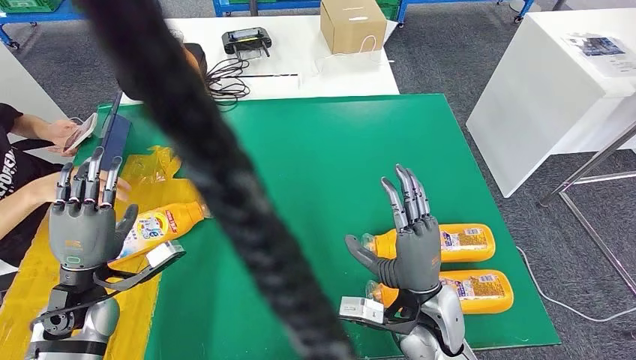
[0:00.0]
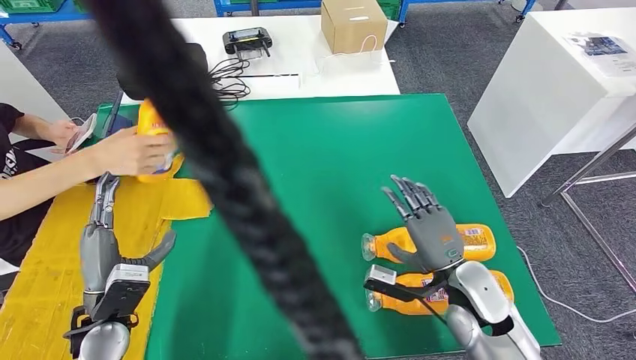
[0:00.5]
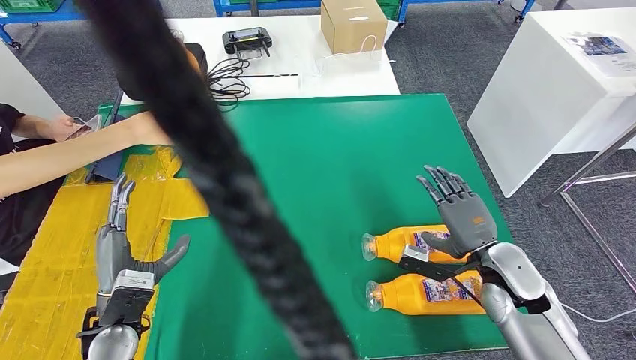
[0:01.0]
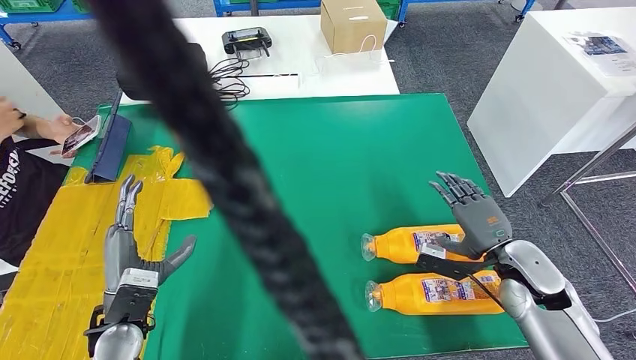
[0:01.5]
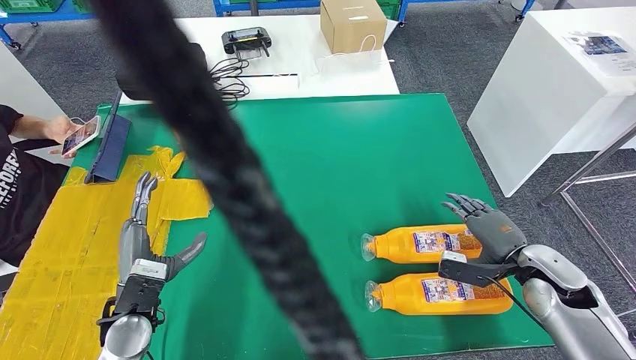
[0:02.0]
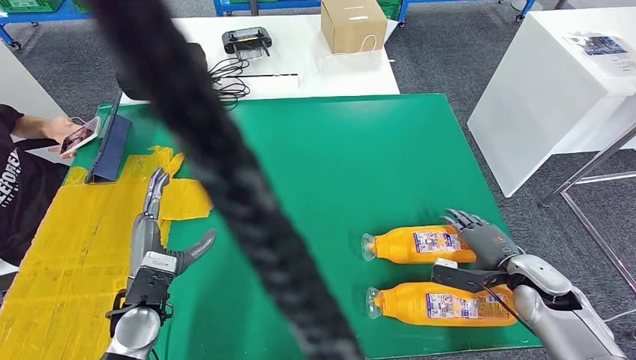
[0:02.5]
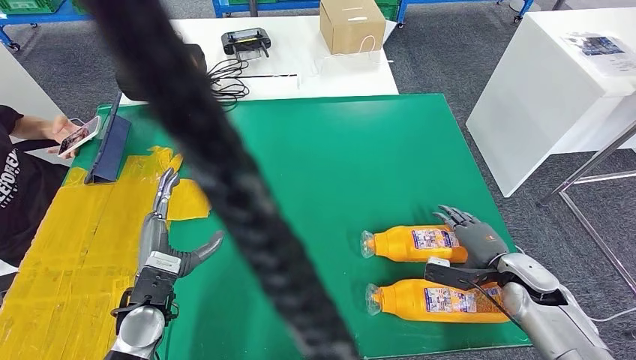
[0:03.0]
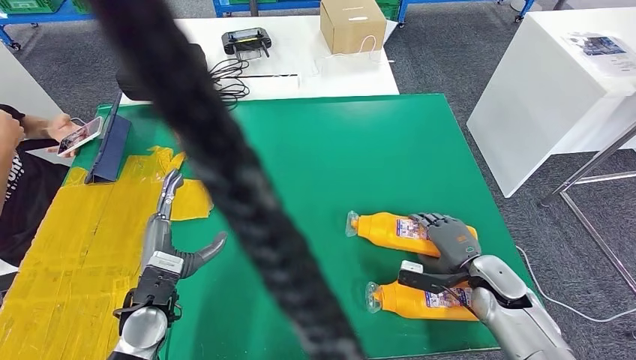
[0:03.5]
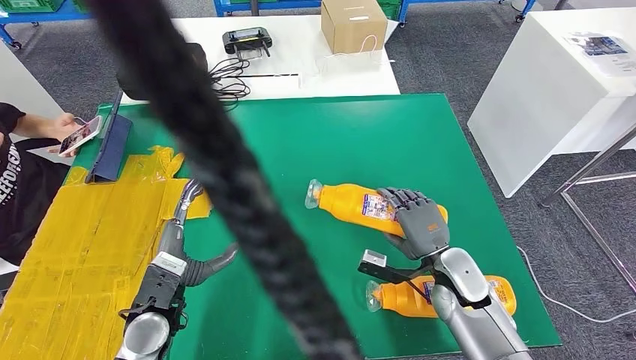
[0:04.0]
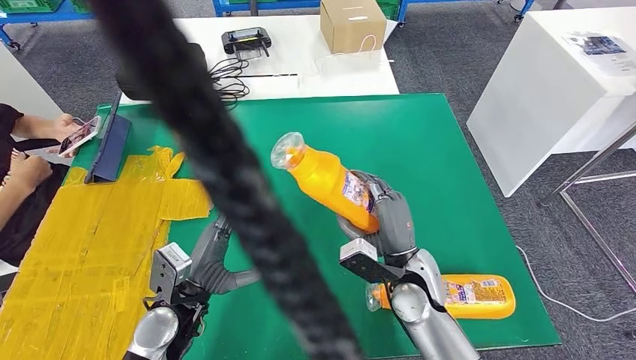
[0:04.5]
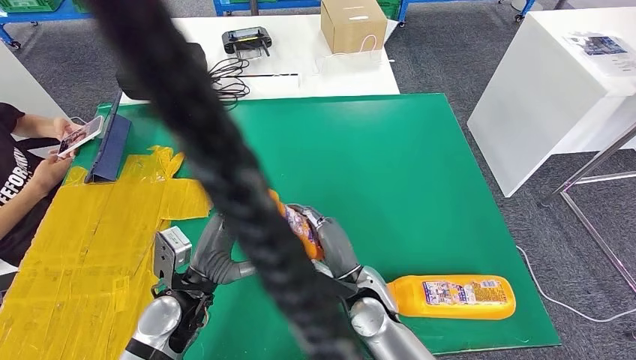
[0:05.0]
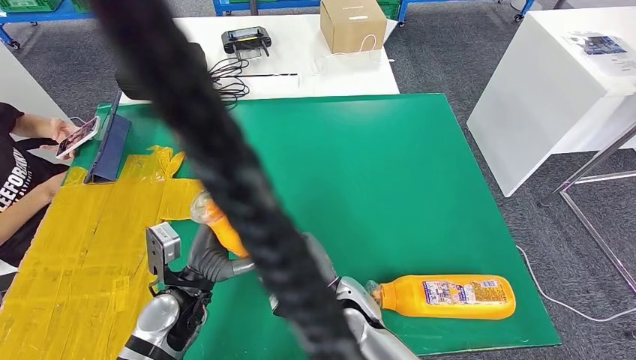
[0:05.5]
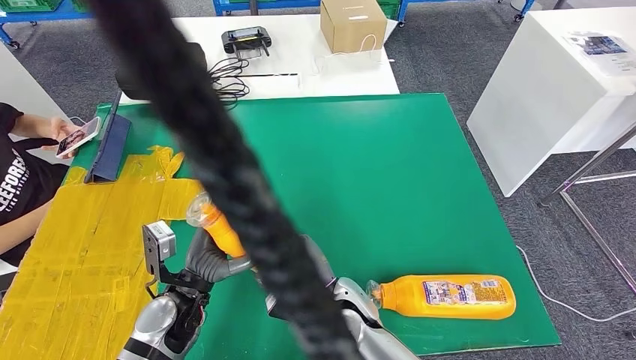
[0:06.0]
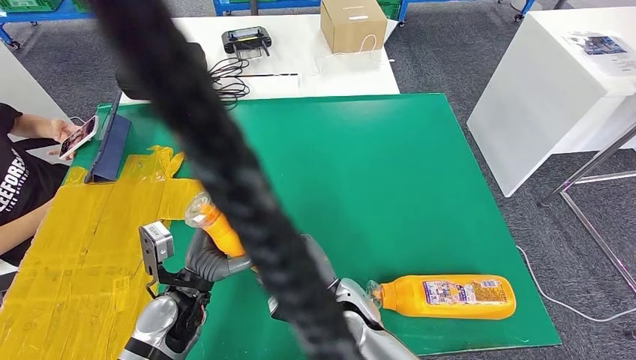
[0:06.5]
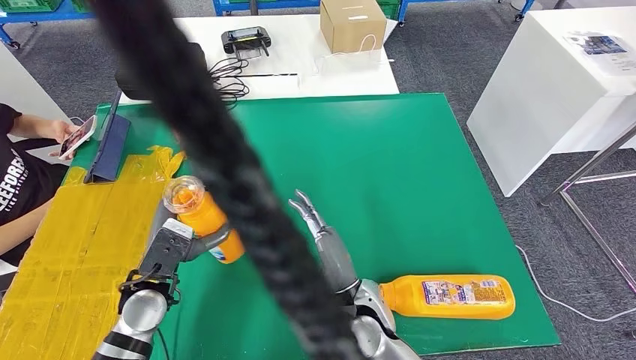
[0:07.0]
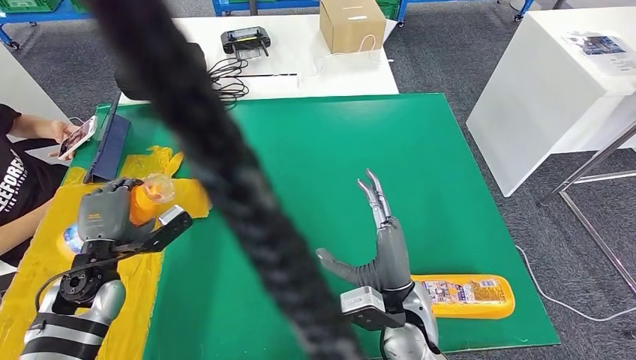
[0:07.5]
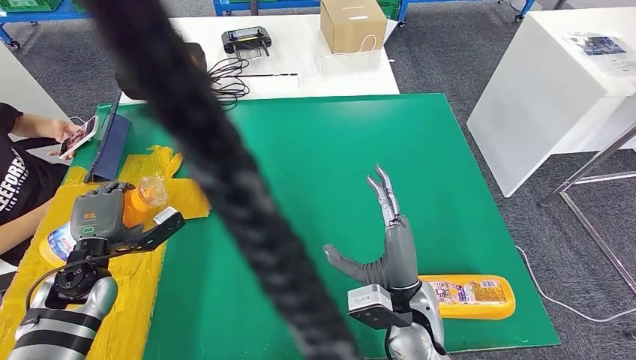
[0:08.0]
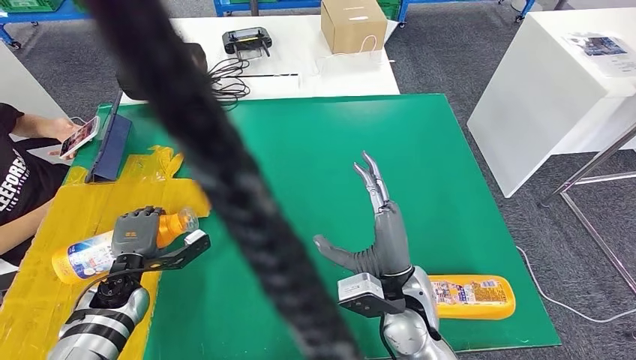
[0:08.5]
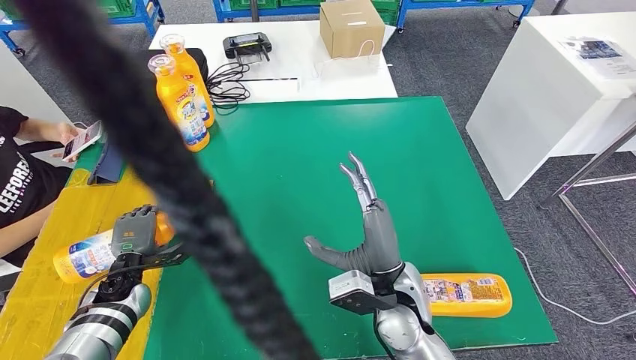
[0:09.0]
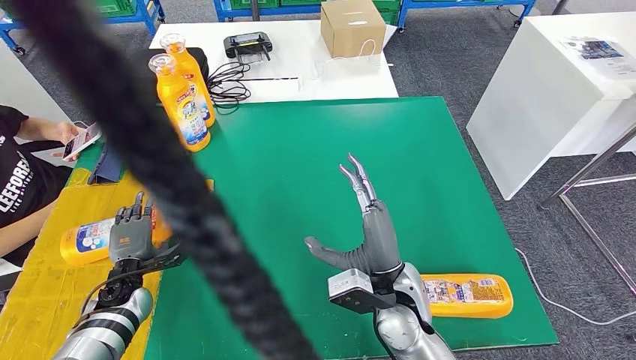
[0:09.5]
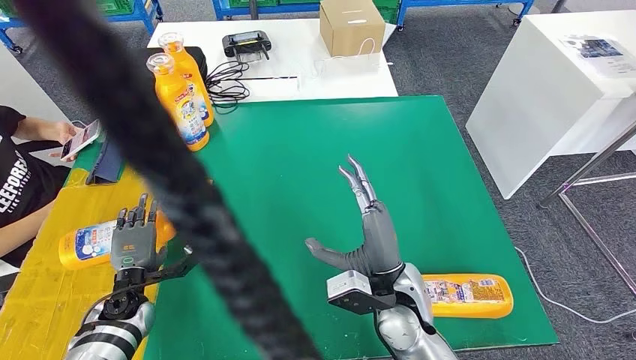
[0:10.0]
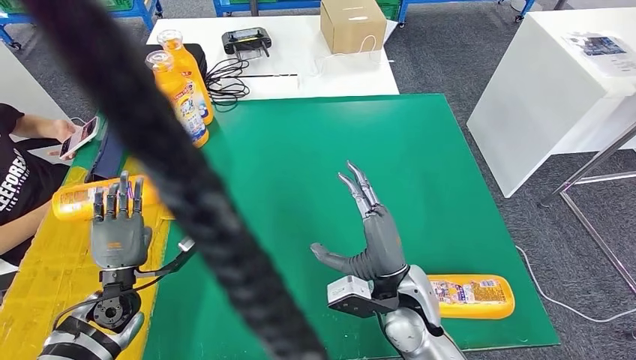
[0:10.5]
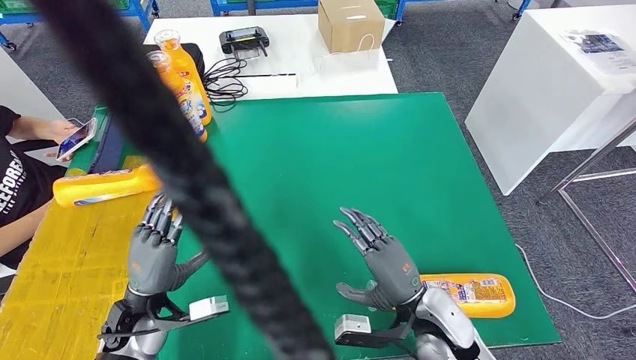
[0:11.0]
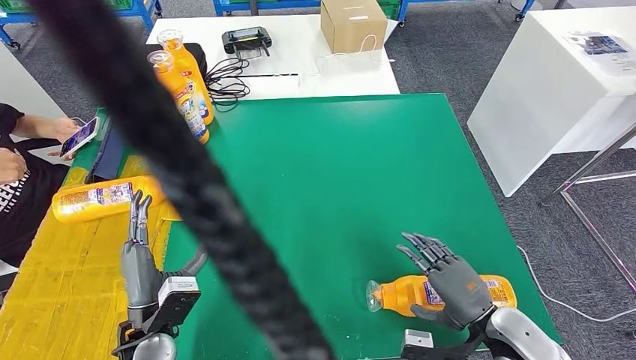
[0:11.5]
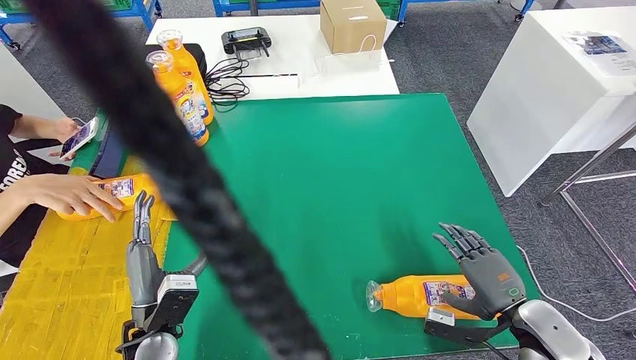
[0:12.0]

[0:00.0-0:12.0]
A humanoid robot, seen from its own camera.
Step, 0:00.5 to 0:05.0: Pick up the fast-moving consumer goods bottle from the table.
Step, 0:05.5 to 0:11.0: Flip the fast-moving consumer goods bottle to the front side.
0:02.0 to 0:04.0: The right hand moves to the left, about 15 cm.
0:04.0 to 0:06.0: The right hand travels to the left by some 20 cm.
0:06.0 to 0:08.0: The left hand goes roughly 15 cm to the left; the right hand is displaced to the right and upward by approximately 10 cm.

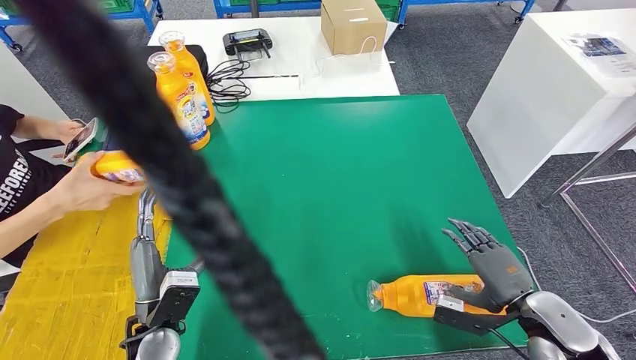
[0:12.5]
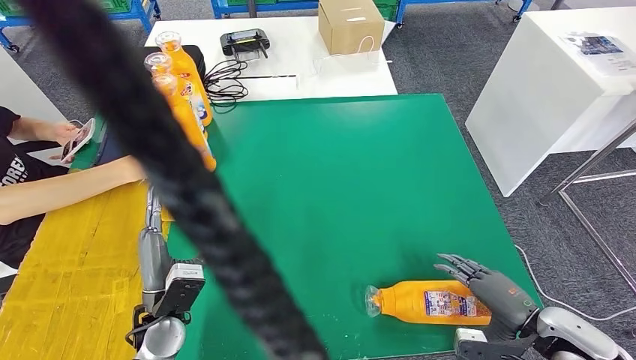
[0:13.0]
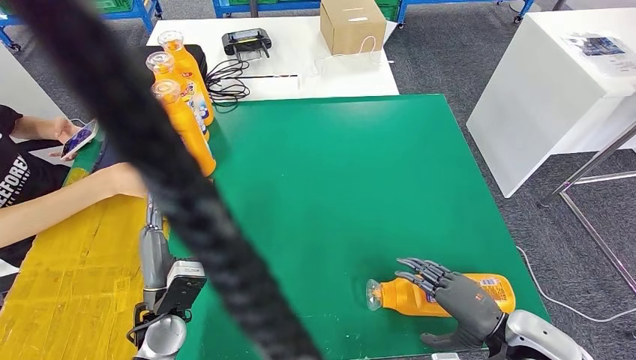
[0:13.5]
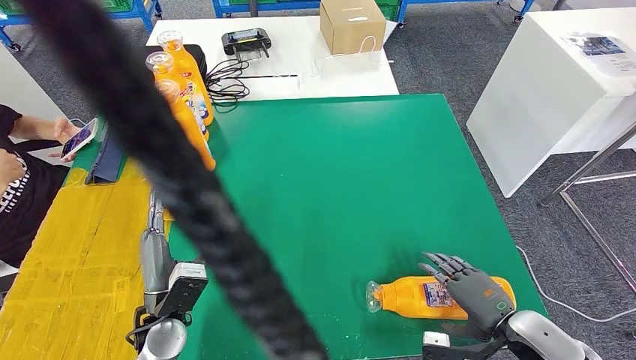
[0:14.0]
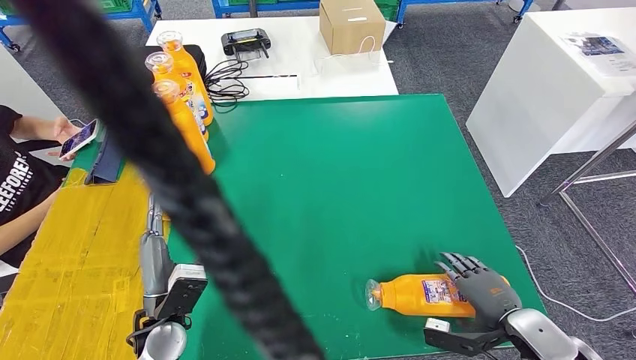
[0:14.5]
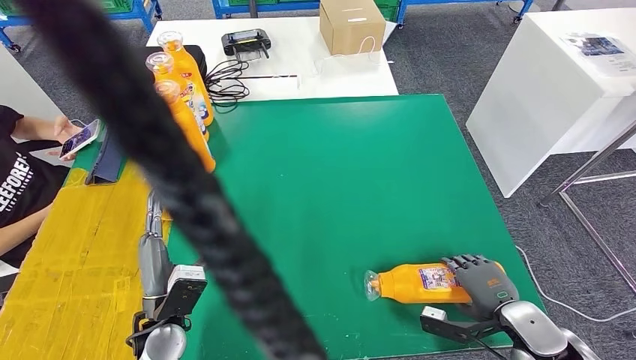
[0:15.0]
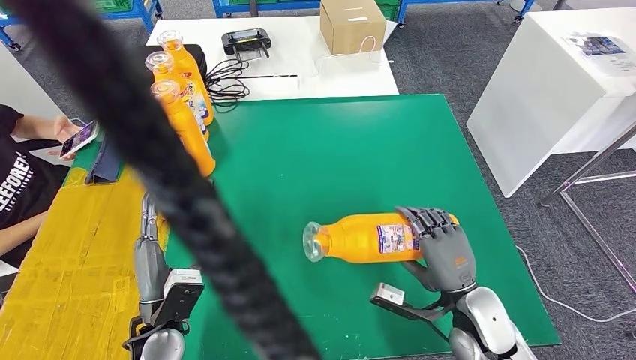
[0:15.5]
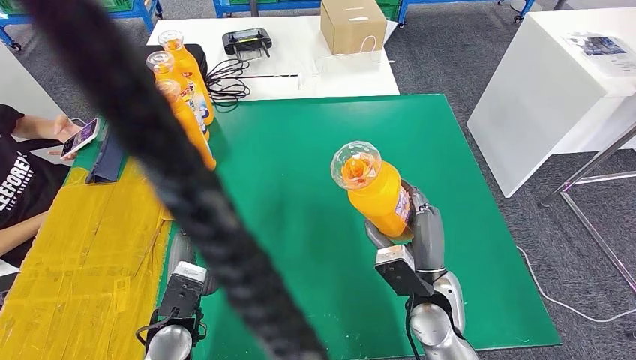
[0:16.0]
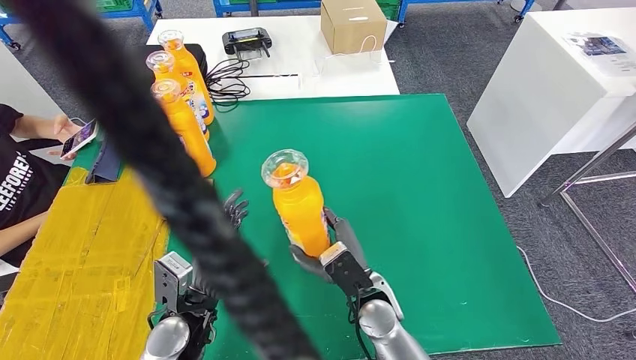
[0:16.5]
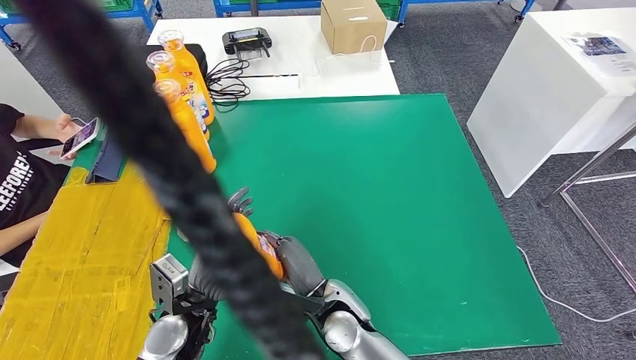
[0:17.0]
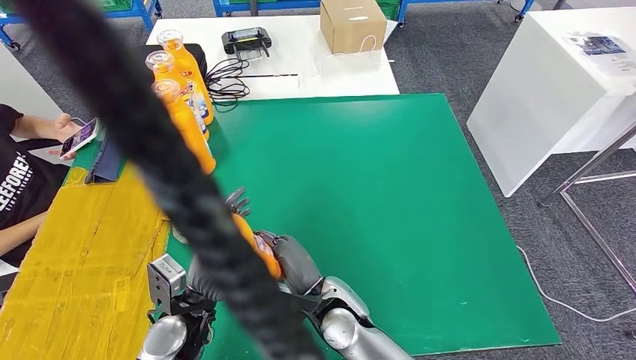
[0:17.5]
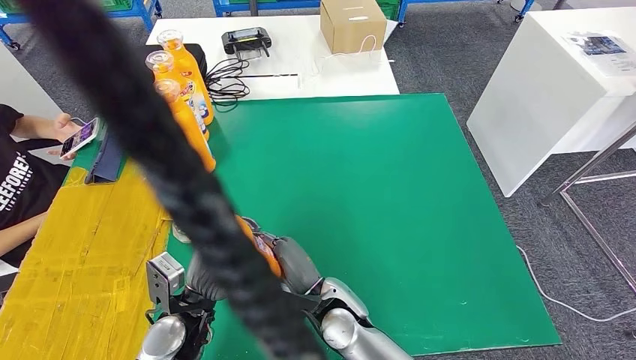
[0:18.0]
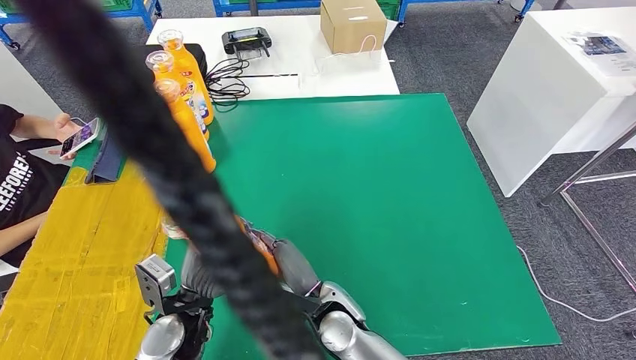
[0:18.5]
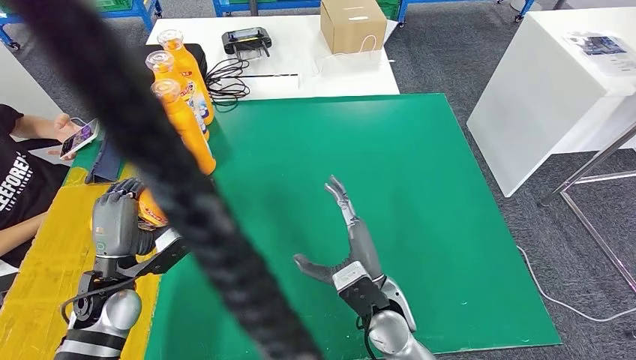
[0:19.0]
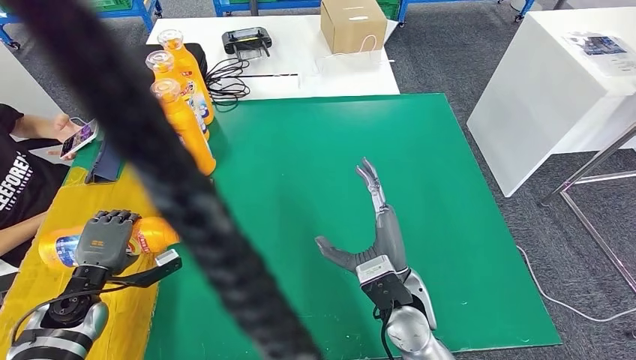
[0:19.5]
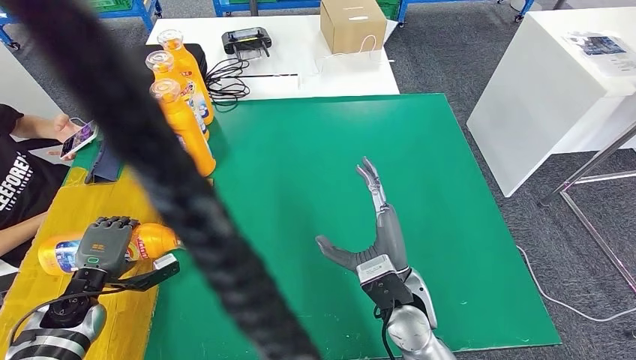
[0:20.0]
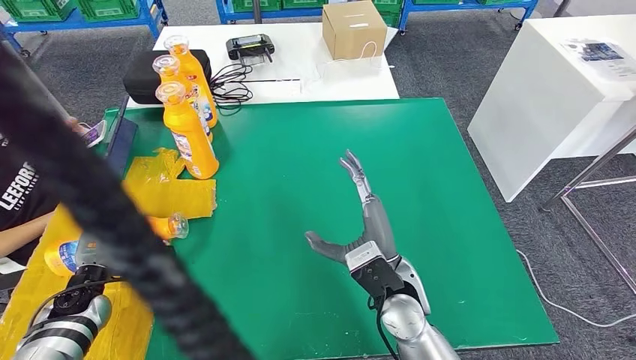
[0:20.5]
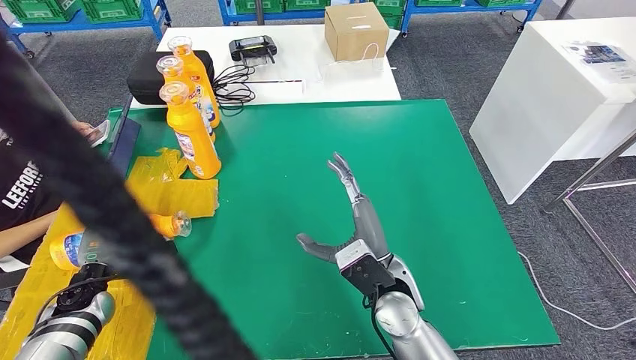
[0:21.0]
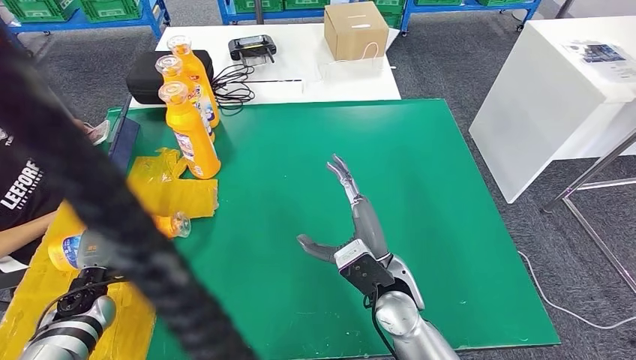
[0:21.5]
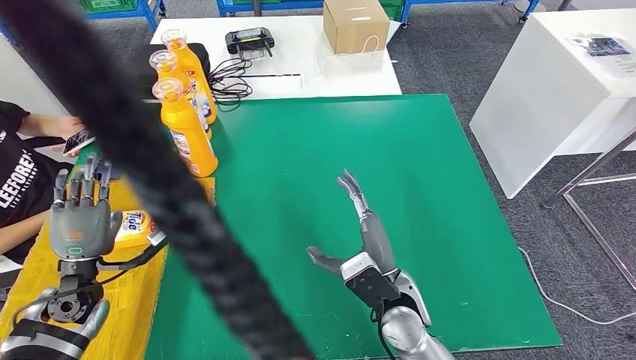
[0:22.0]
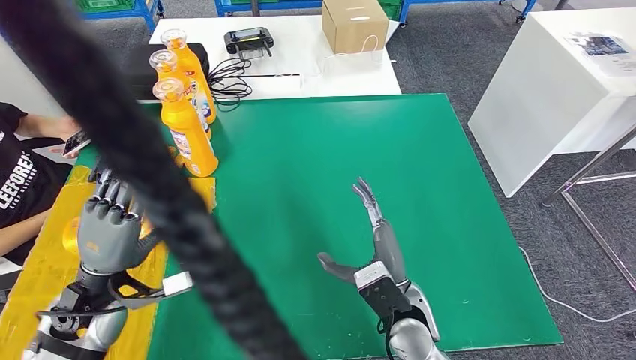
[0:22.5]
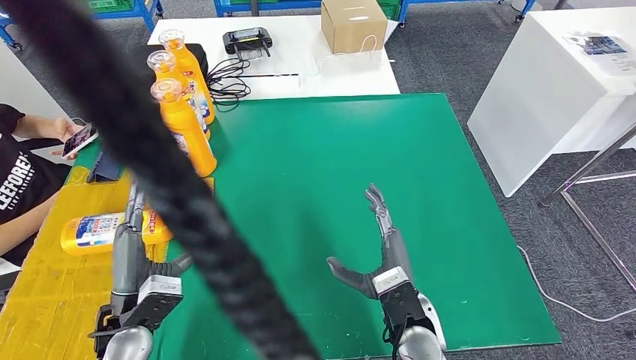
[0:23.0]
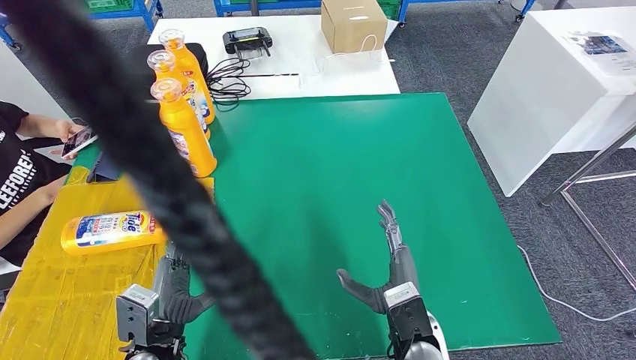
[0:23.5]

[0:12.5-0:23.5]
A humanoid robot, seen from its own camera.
Step, 0:12.5 to 0:16.5: Pick up the fast-moving consumer goods bottle from the table.
Step, 0:17.0 to 0:23.5: Flip the fast-moving consumer goods bottle to the front side.
0:14.5 to 0:16.0: The right hand shifts about 20 cm to the left and forward.
0:16.0 to 0:18.0: The right hand is displaced to the left by some 15 cm.
0:18.0 to 0:20.0: The left hand travels to the left by about 20 cm; the right hand travels to the right and upward by about 10 cm.
